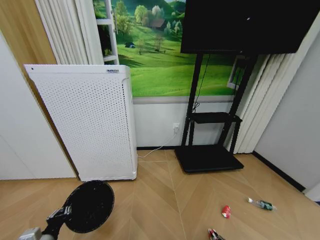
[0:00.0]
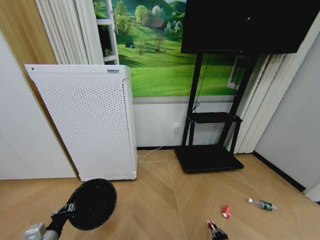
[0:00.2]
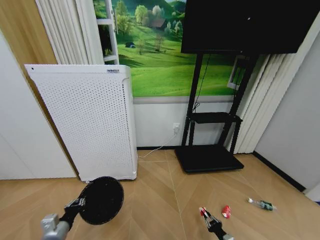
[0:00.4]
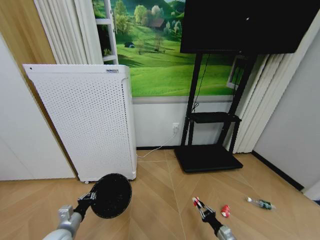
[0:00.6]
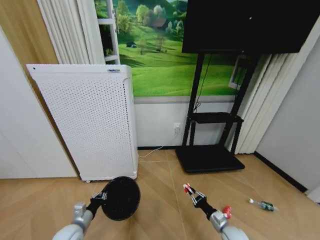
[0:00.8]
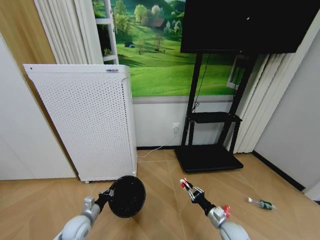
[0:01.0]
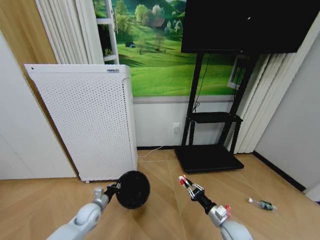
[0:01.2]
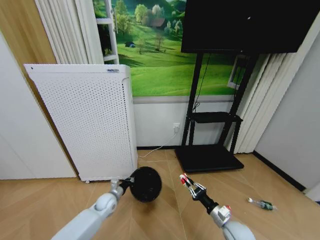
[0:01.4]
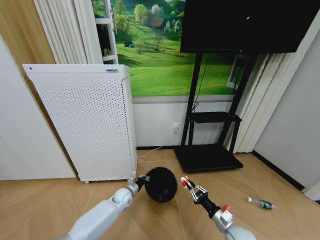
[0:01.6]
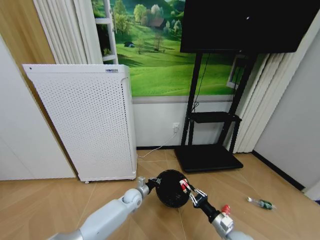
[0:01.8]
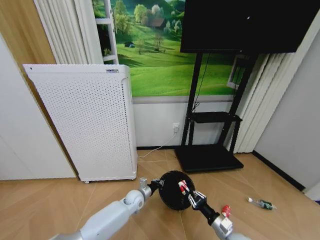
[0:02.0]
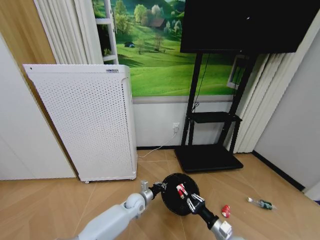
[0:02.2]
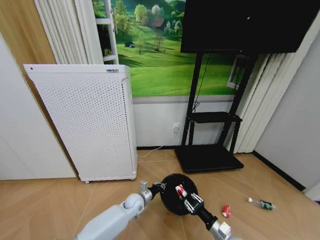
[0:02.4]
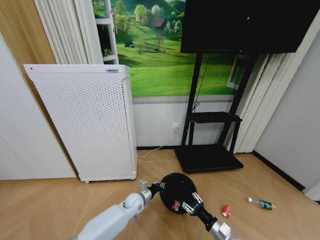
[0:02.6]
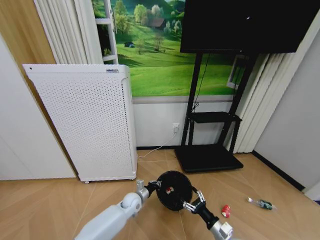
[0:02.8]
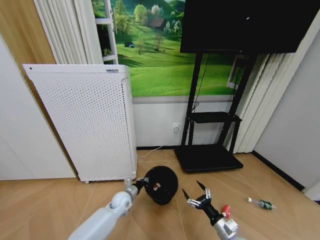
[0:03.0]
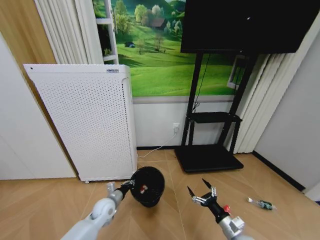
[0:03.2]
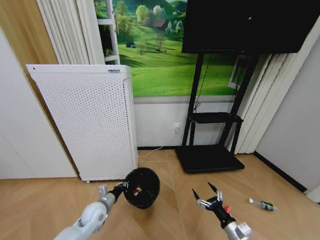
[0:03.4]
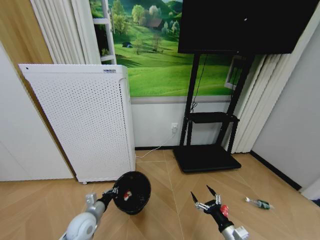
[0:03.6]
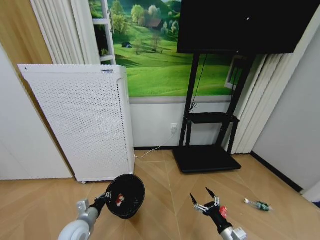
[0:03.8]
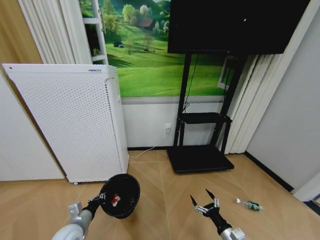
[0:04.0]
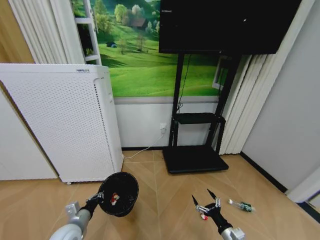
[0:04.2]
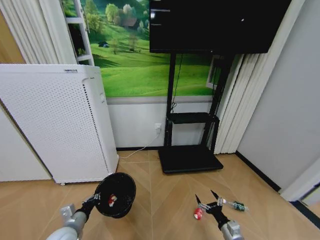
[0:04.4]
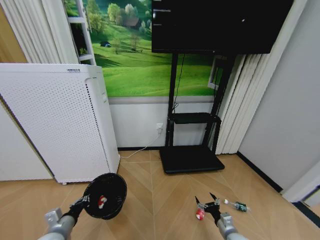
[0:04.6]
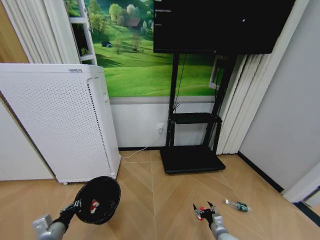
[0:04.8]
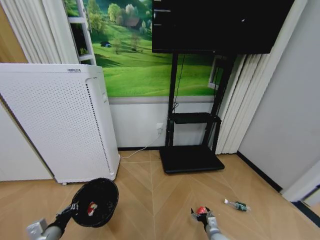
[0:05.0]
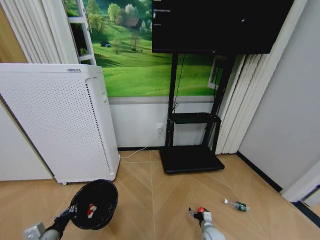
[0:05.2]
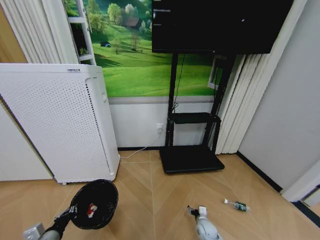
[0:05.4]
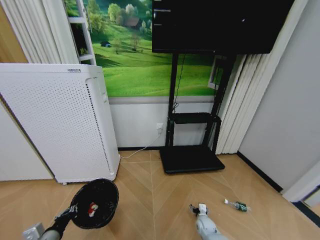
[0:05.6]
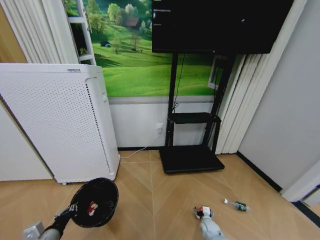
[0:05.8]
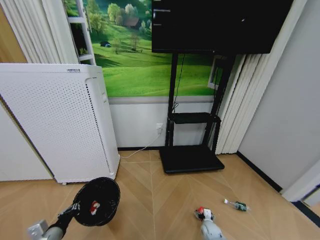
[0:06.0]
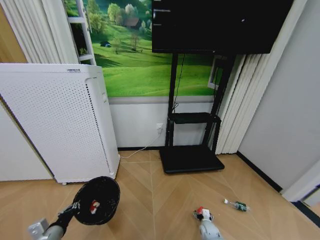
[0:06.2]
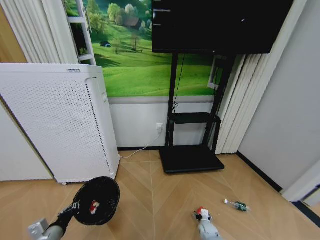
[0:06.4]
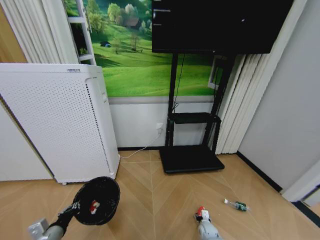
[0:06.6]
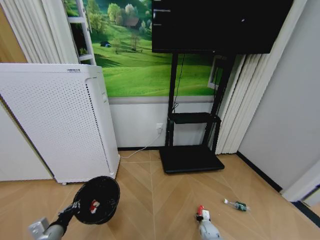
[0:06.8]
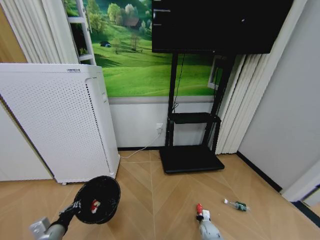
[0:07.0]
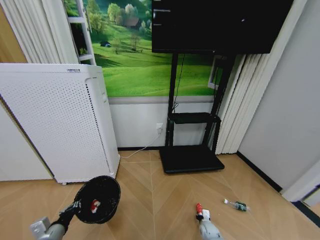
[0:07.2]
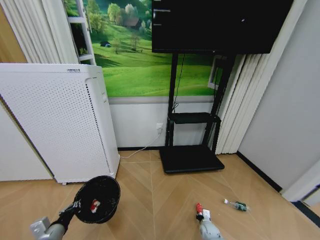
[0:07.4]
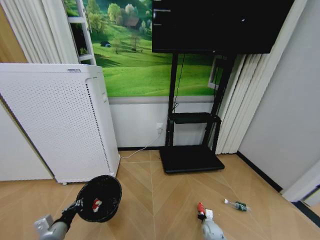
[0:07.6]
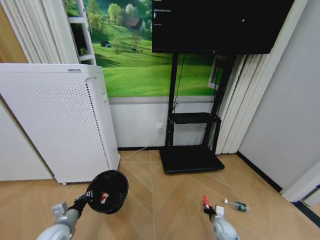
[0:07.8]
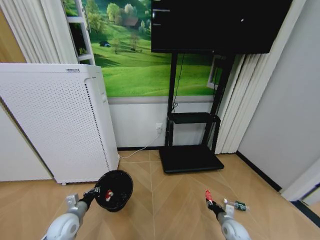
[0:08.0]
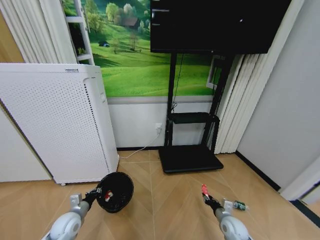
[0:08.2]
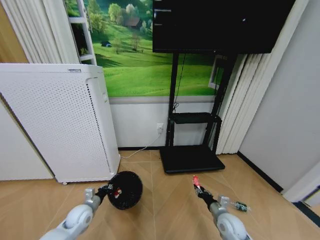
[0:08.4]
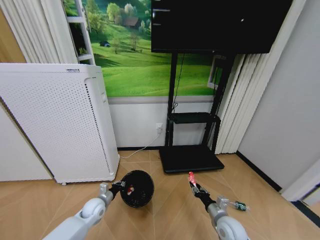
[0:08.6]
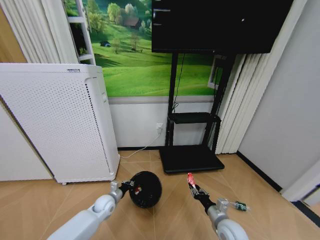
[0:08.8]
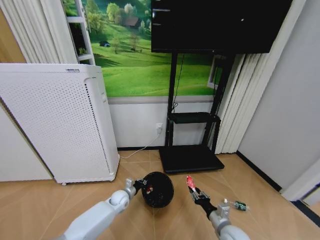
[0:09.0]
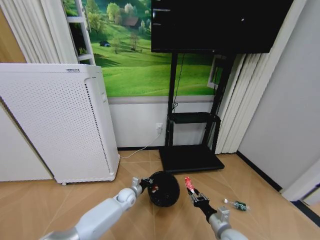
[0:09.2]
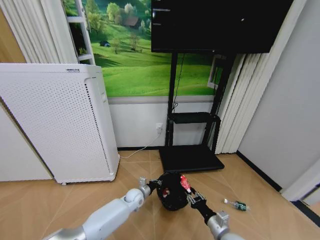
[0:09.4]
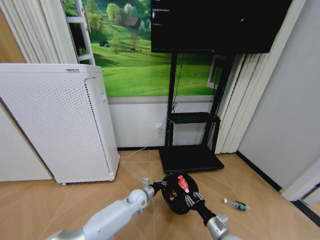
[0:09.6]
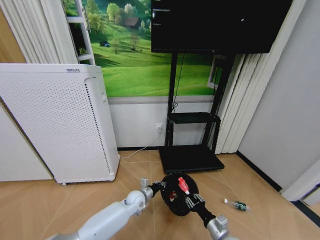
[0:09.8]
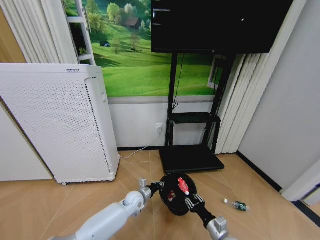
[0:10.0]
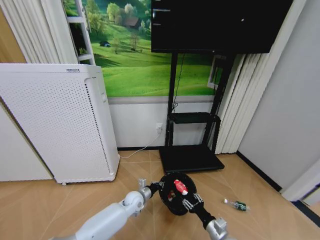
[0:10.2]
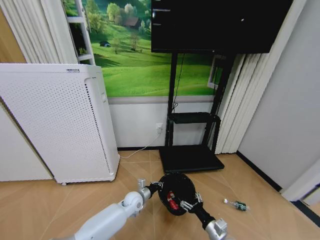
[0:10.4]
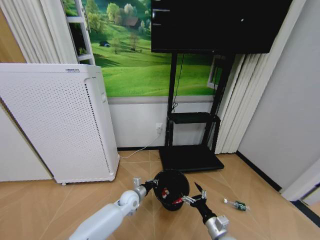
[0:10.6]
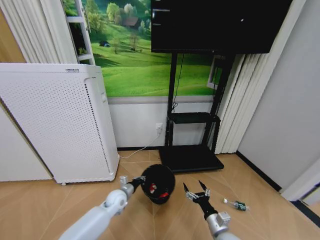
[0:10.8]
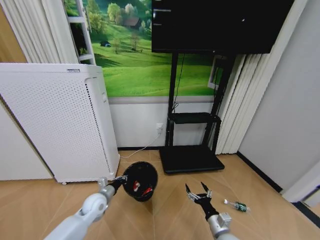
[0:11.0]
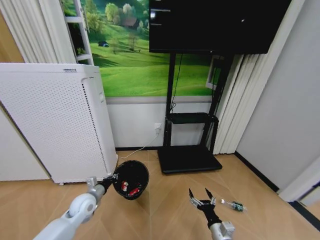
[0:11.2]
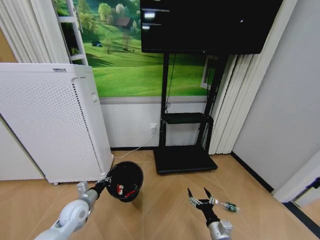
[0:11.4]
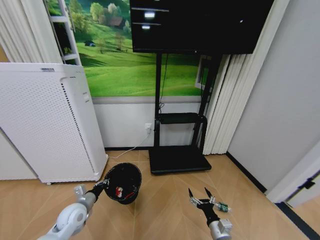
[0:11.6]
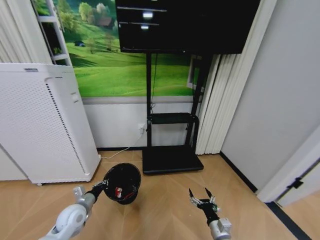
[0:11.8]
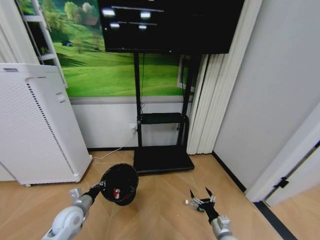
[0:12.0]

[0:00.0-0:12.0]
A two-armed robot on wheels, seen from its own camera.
Task of the whole recording: Pick up the trash bin and place the garbage on the floor into it.
0.0 to 1.6 s: The right gripper moves upward and forward, roughly 25 cm, while the left gripper goes roughly 35 cm forward, to the right and downward.
1.6 to 3.0 s: The right gripper opens up.
3.0 to 4.4 s: The left gripper heads to the left, backward and upward, covering about 25 cm, while the right gripper moves approximately 5 cm.
4.4 to 6.0 s: The left gripper moves backward, some 5 cm. Meanwhile the right gripper shifts some 20 cm downward and forward.
7.6 to 9.0 s: The left gripper goes approximately 30 cm forward, to the right and downward. The right gripper travels upward by some 20 cm.
9.0 to 10.4 s: The right gripper opens its fingers. The left gripper heads to the right, covering roughly 10 cm.
10.4 to 12.0 s: The left gripper travels to the left by approximately 25 cm.

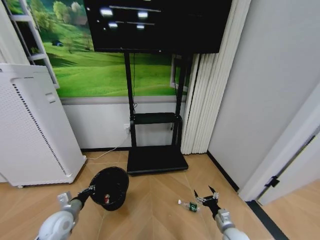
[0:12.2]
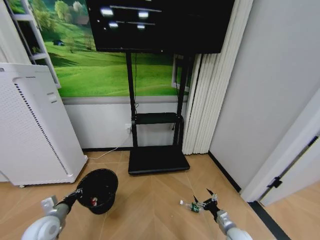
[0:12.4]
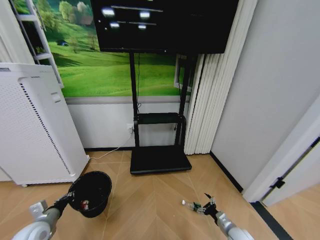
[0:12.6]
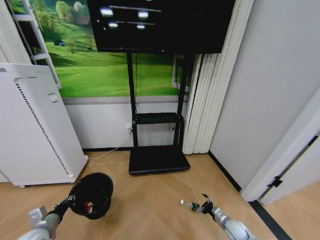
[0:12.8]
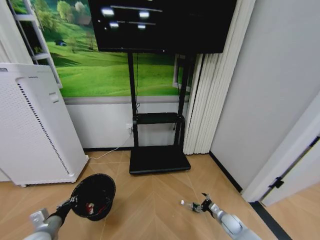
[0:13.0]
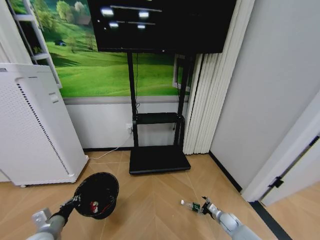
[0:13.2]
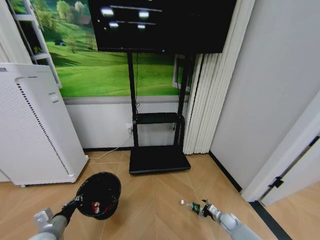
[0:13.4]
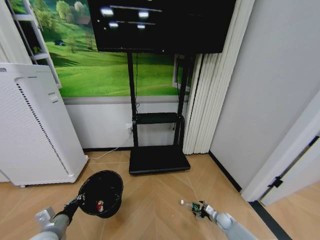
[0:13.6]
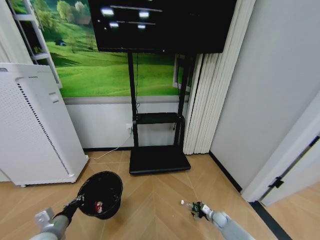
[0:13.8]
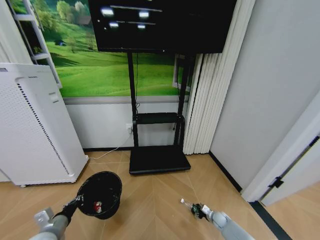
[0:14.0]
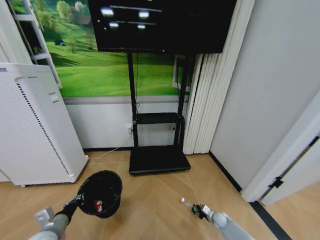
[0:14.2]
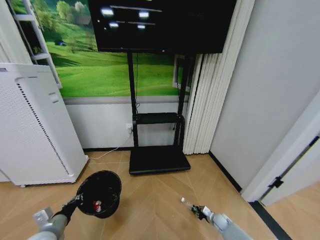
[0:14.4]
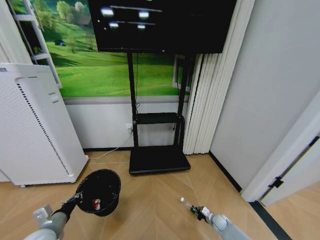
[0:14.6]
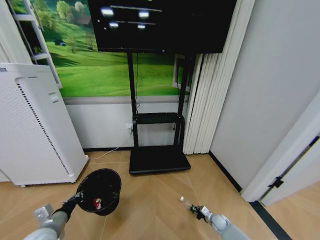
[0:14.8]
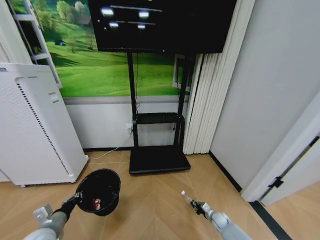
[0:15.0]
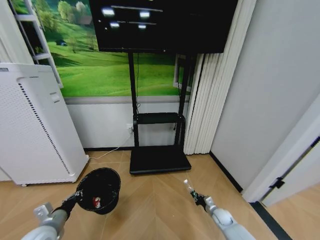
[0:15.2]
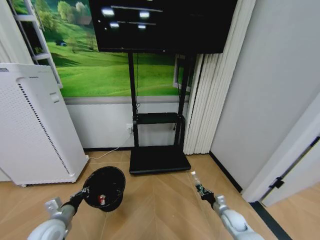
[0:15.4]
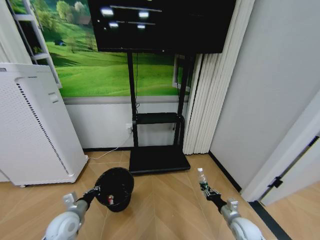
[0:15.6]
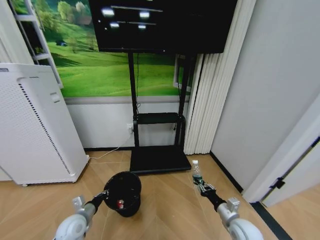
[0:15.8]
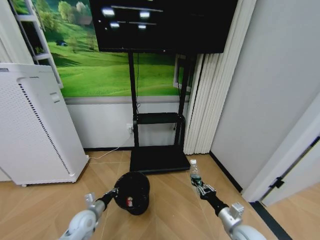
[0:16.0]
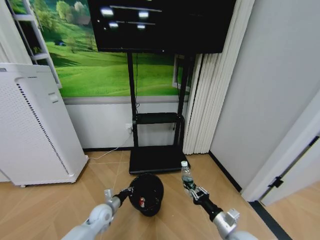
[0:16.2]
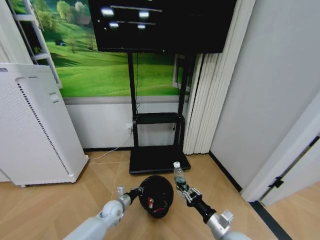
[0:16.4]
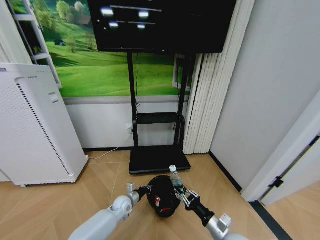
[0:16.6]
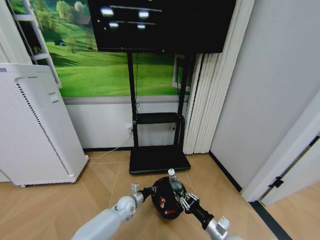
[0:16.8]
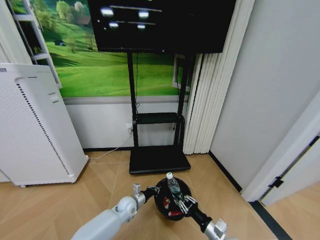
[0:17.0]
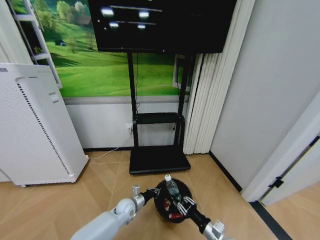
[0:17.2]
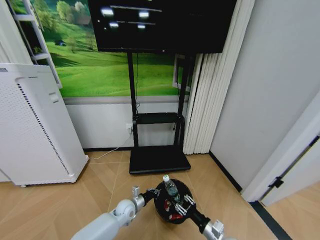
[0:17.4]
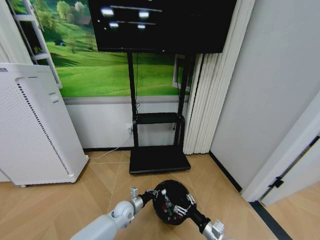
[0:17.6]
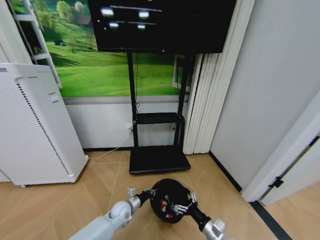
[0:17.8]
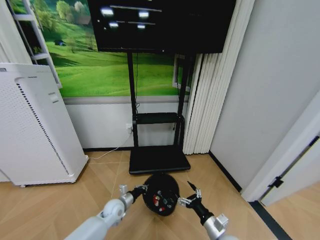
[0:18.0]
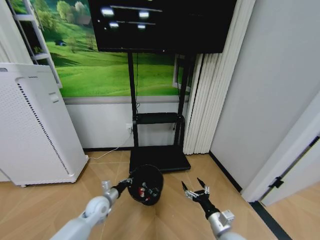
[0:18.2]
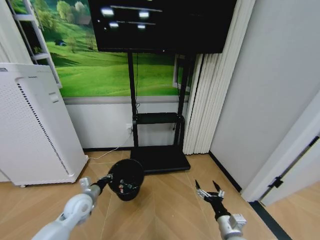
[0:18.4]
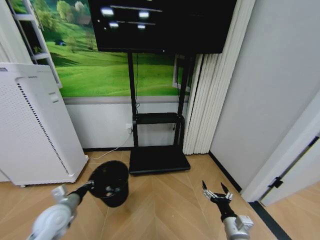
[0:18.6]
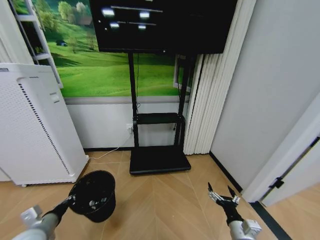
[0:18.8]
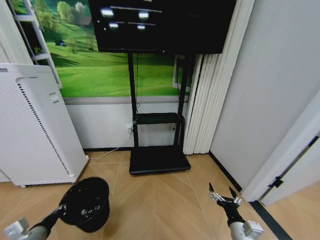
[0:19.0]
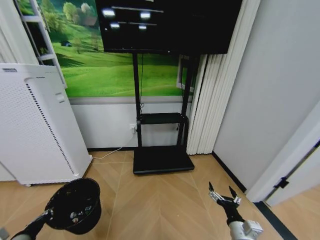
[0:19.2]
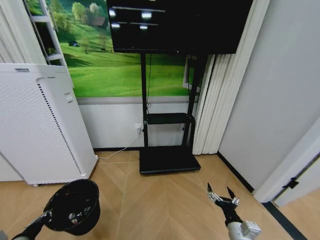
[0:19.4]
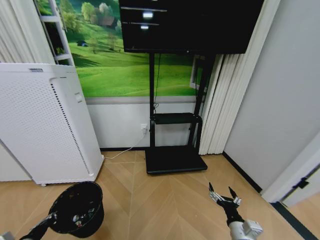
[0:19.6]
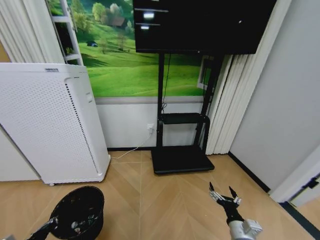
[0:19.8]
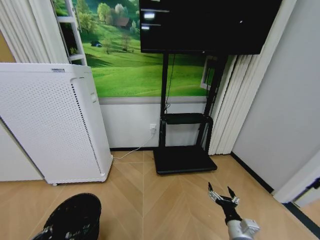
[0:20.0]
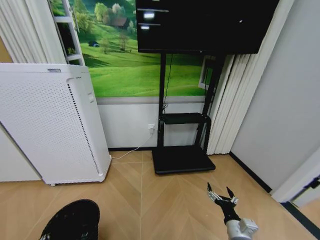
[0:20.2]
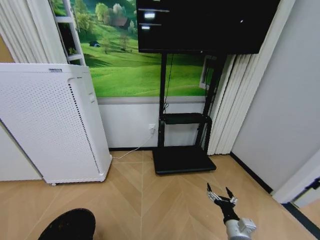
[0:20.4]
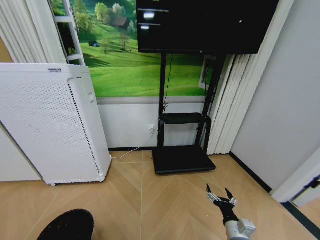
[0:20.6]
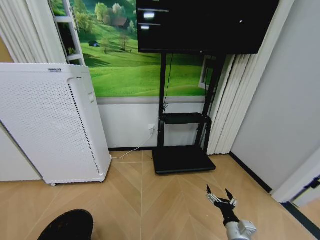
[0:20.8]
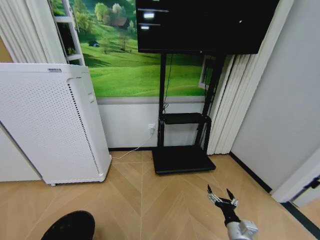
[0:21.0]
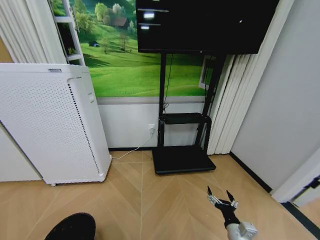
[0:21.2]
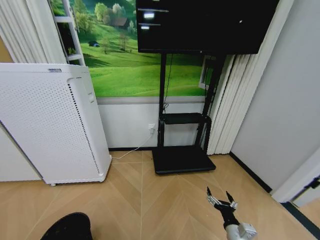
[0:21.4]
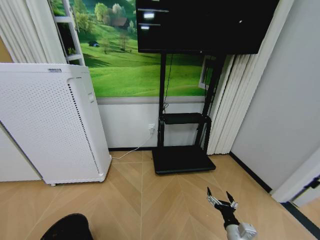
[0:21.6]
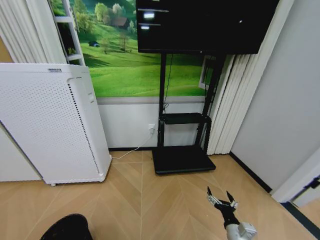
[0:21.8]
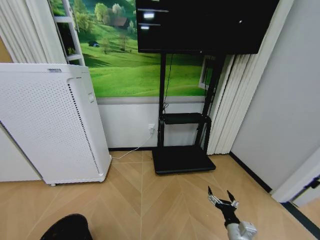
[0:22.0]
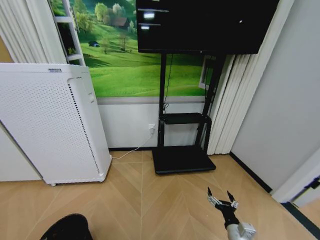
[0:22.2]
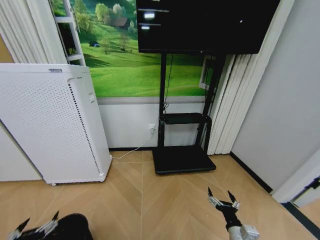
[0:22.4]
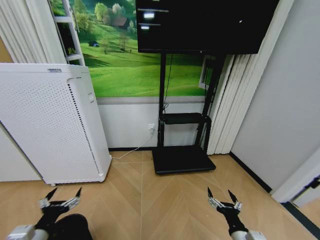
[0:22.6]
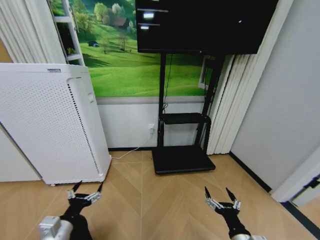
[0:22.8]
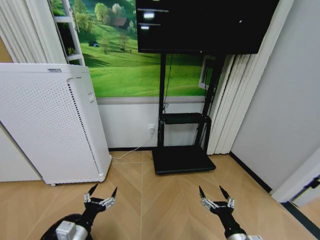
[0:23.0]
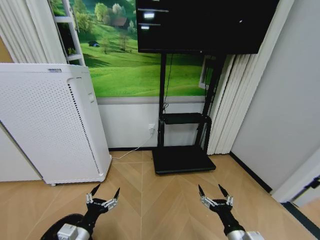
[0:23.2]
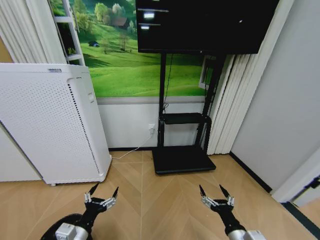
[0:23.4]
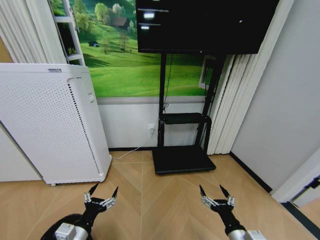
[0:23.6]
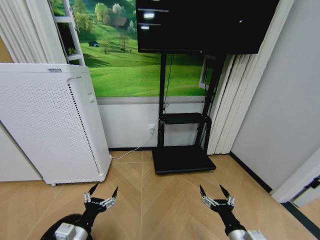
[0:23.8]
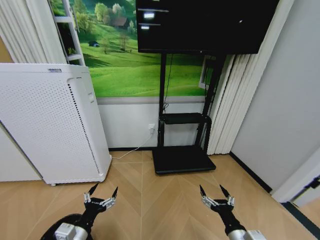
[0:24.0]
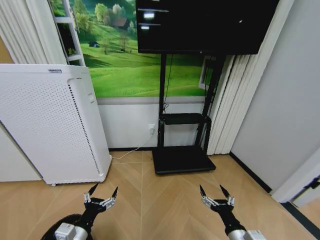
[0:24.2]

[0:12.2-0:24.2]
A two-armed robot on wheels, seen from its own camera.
Task of the whole recording: Pick up the trash bin and place the garbage on the floor into it.
12.2 to 13.8 s: The right gripper goes about 20 cm downward, forward and to the right; the left gripper heads backward, covering about 5 cm.
13.8 to 15.2 s: The right gripper travels upward by roughly 5 cm, and closes up.
15.2 to 16.6 s: The left gripper is displaced to the right, forward and downward by roughly 30 cm; the right gripper is displaced upward, backward and to the left by about 25 cm.
16.6 to 18.2 s: The right gripper opens its fingers. Meanwhile the left gripper travels to the left and upward by roughly 15 cm.
18.2 to 19.8 s: The left gripper heads backward and to the left, covering about 25 cm.
19.8 to 21.2 s: The left gripper shifts about 10 cm downward.
21.2 to 22.6 s: The right gripper moves about 5 cm, while the left gripper heads upward, to the right and forward, covering some 20 cm, and opens up.
22.6 to 24.2 s: The left gripper goes roughly 10 cm to the right.
